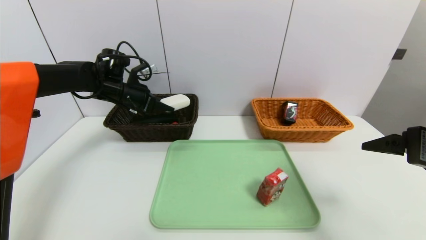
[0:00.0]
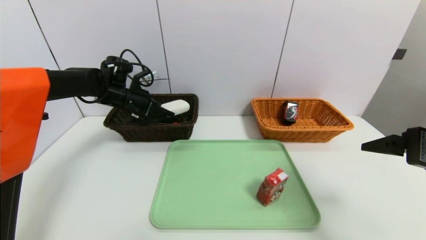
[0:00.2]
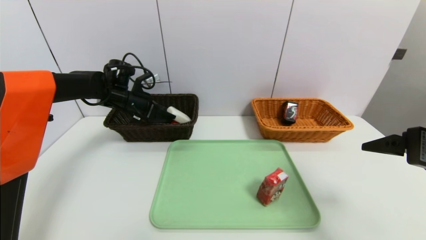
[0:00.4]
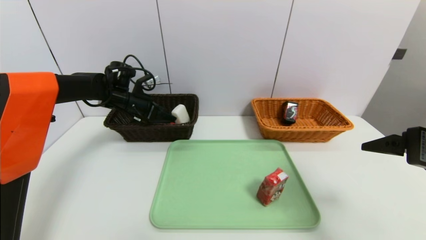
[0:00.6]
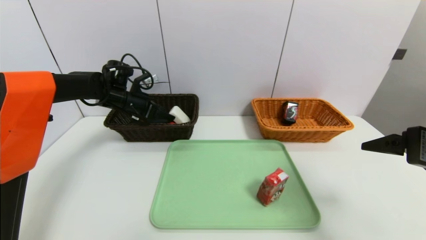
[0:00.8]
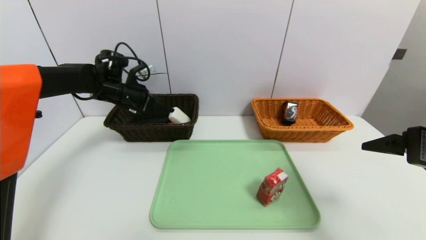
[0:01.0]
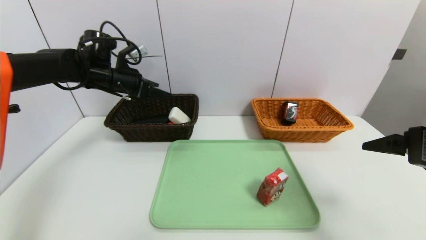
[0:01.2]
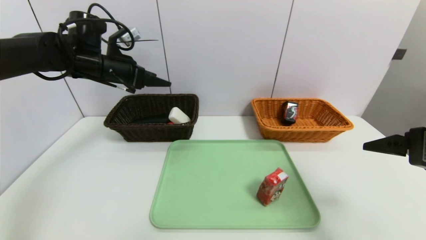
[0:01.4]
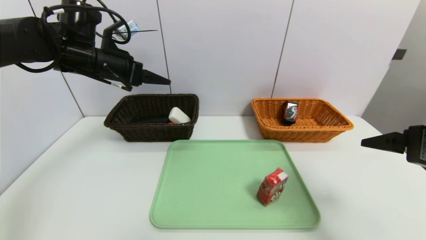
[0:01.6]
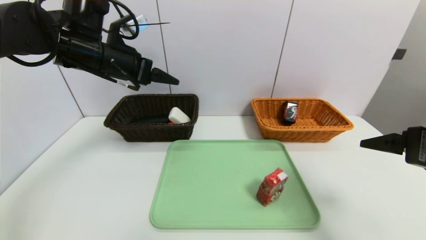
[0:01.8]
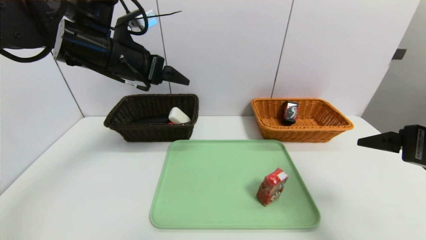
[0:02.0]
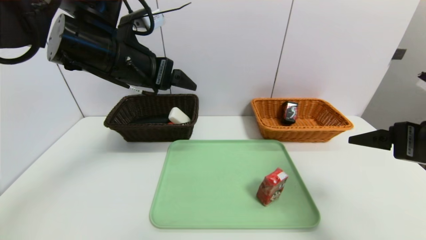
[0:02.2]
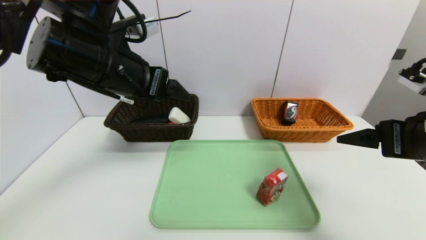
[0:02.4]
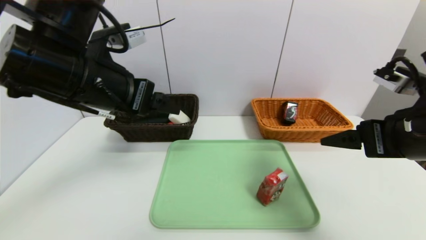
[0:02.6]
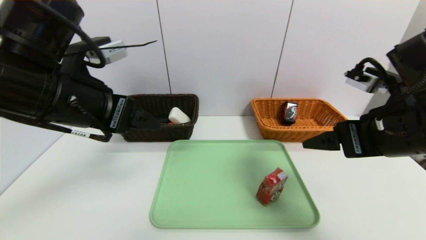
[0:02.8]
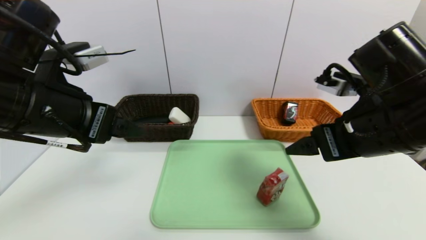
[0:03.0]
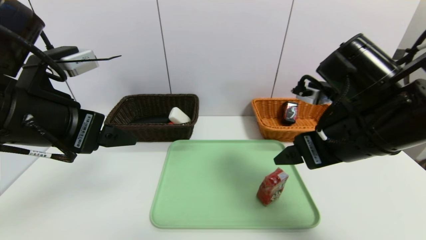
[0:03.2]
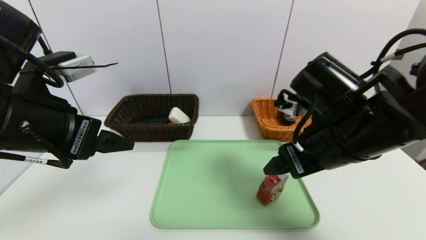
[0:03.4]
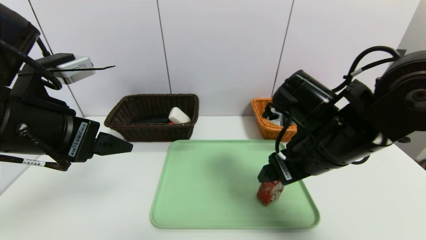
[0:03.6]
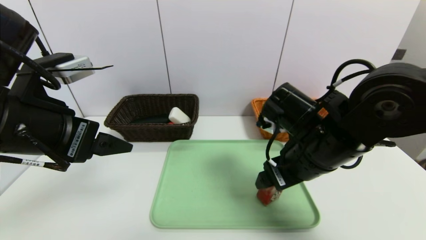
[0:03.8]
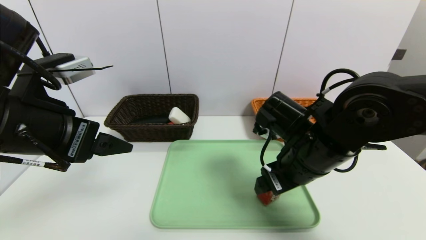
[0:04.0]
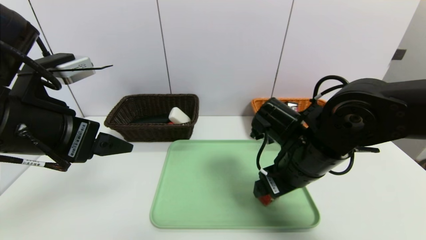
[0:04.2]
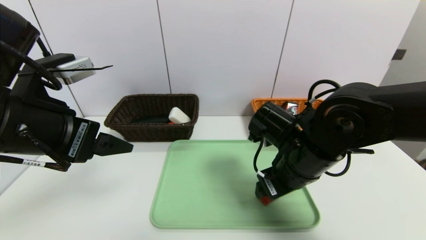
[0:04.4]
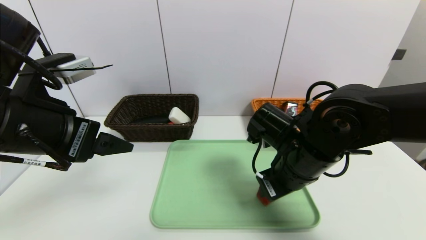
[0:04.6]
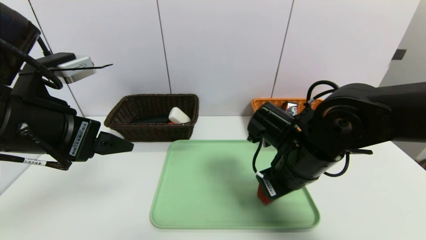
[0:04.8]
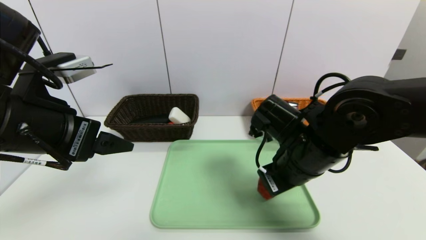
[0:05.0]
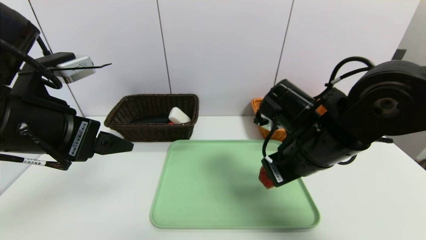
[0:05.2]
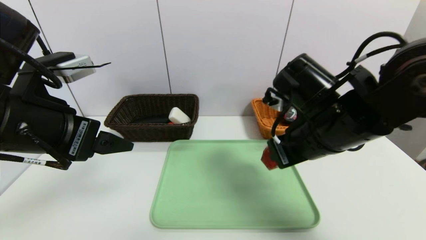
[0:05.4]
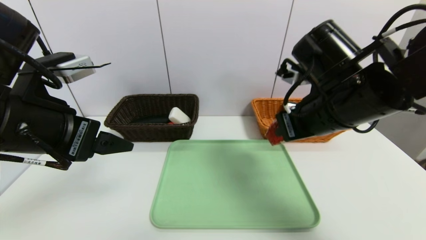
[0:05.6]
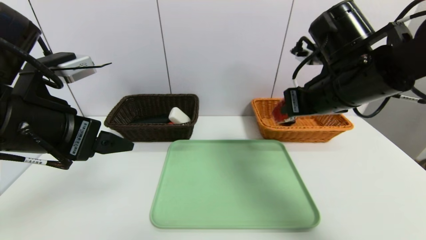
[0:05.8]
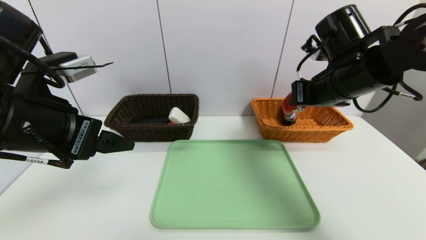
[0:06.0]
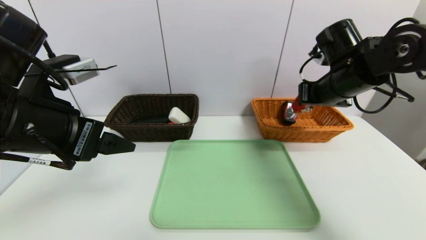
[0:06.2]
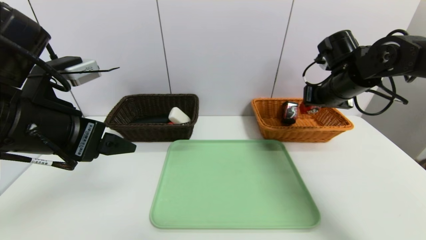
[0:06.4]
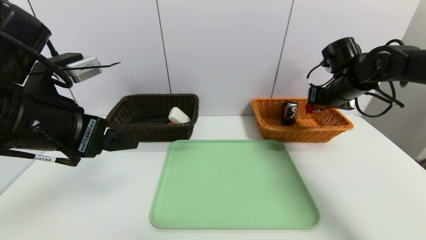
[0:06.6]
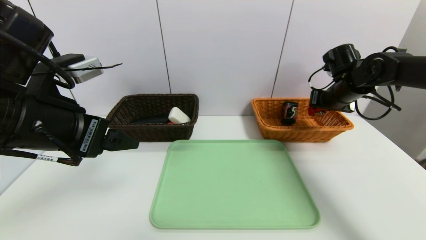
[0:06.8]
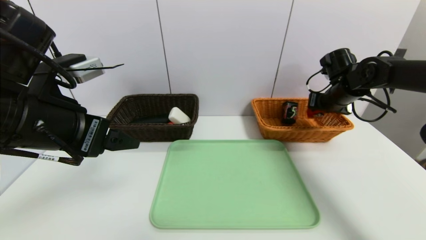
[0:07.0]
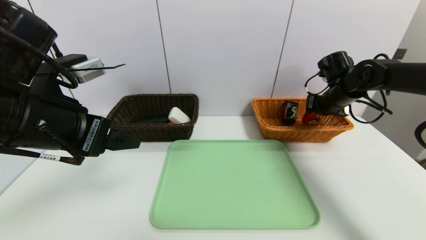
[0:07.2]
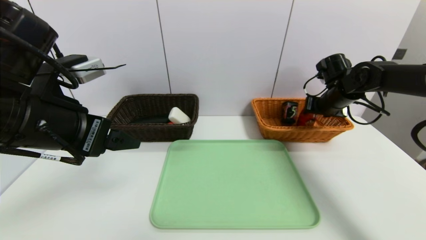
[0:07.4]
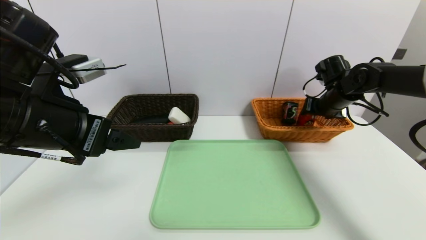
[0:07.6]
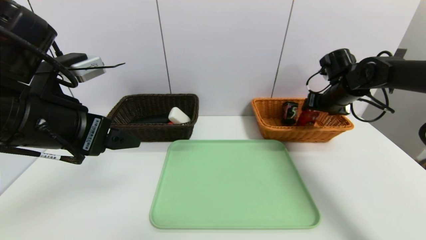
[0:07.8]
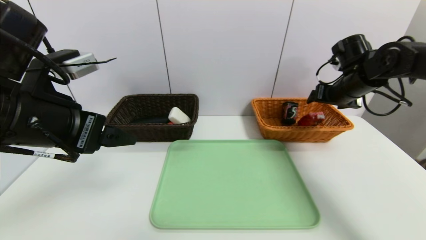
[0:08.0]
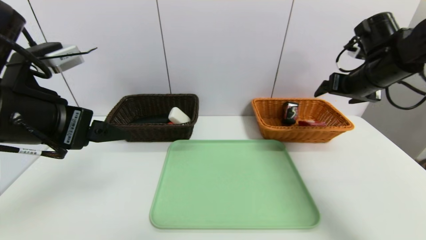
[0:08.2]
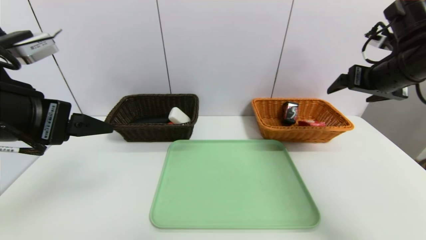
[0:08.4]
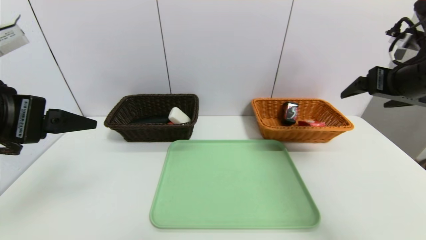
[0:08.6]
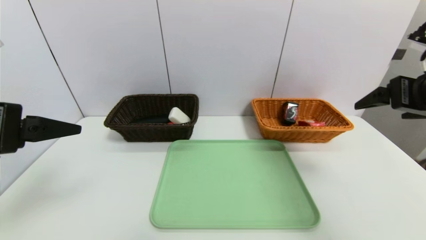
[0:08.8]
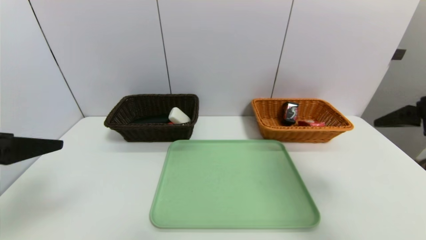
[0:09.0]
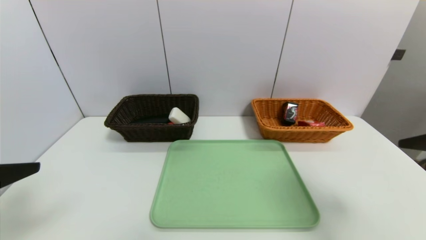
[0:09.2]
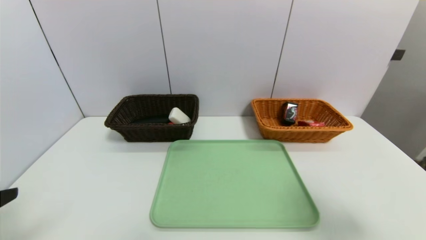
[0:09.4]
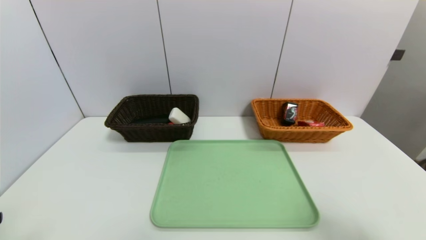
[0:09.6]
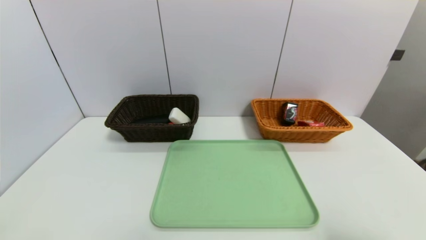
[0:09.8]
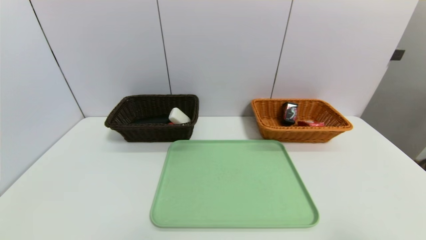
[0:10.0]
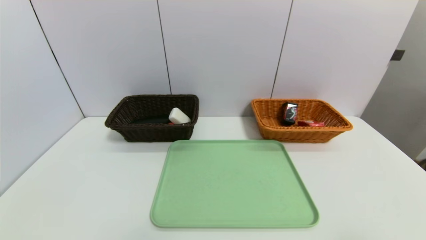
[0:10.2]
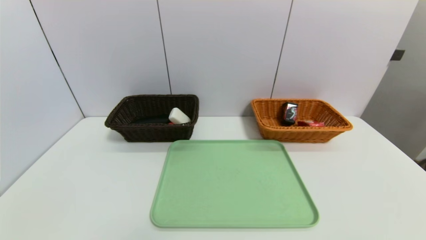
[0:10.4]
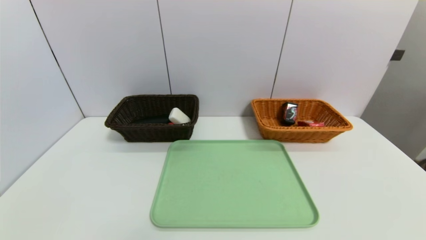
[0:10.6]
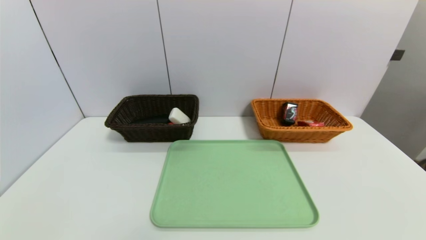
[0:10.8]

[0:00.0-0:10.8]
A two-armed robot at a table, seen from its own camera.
Task of the whole recording: place the food in the right basket with the right gripper, and place the non food items in the left basket with the left gripper.
Step, 1.4 to 7.8 s: Grasp the milk and put it in the right basket.
0.0 to 1.6 s: The left gripper is displaced upward and backward by some 10 cm, and opens its fingers.
1.6 to 3.0 s: The left gripper goes roughly 20 cm backward, while the right gripper moves to the left and forward, roughly 10 cm.
3.0 to 4.6 s: The right gripper travels downward and to the left by about 10 cm, and closes up.
4.6 to 6.2 s: The right gripper shifts approximately 20 cm to the right, forward and upward, and closes up.
6.2 to 7.8 s: The right gripper moves forward, to the right and downward, roughly 10 cm, and opens its fingers.
7.8 to 9.2 s: The right gripper goes roughly 30 cm backward; the left gripper heads backward and to the left, covering approximately 15 cm.
9.2 to 10.8 s: The left gripper shifts some 20 cm downward and backward; the right gripper travels backward and downward by roughly 20 cm.

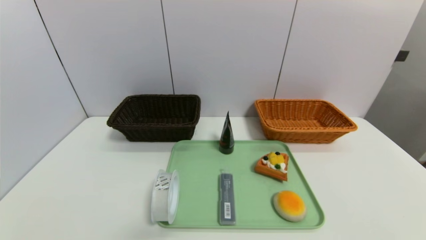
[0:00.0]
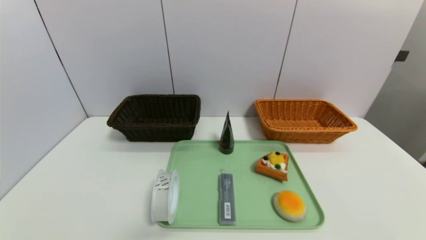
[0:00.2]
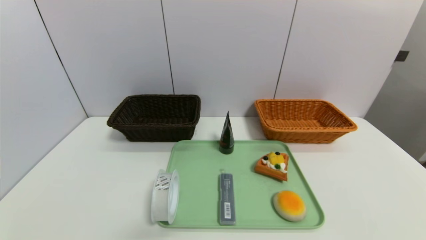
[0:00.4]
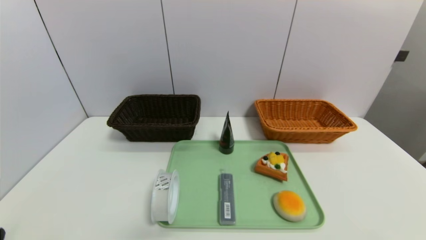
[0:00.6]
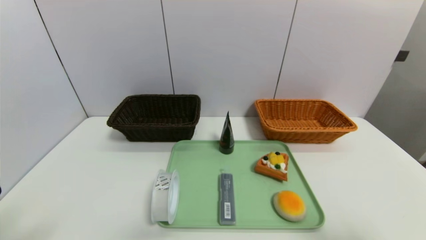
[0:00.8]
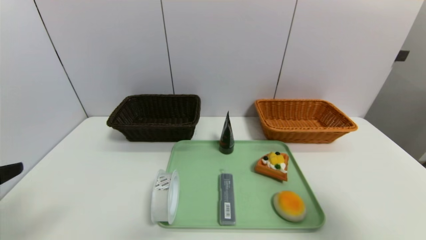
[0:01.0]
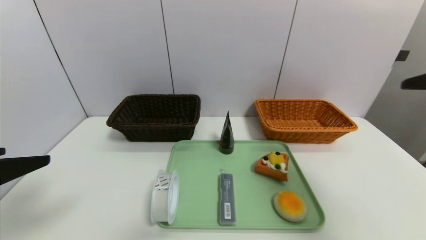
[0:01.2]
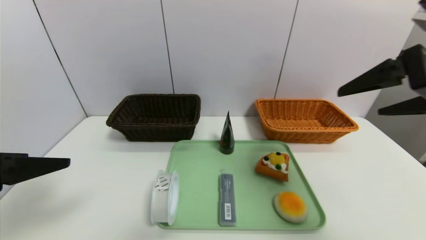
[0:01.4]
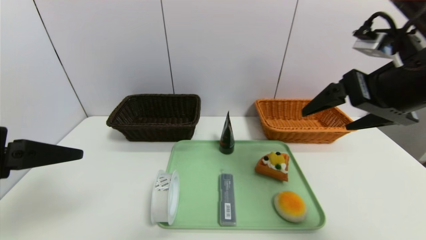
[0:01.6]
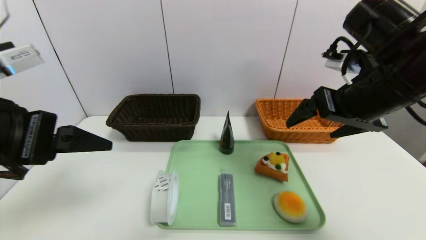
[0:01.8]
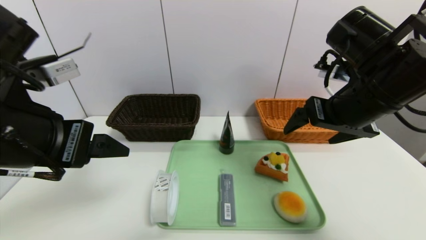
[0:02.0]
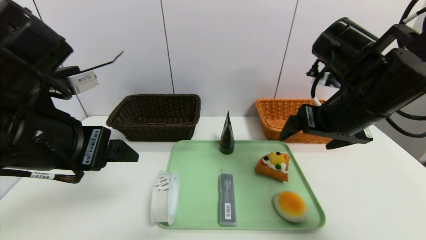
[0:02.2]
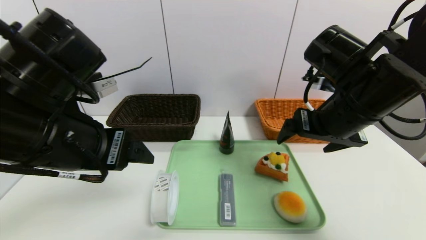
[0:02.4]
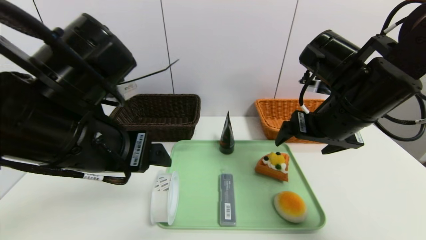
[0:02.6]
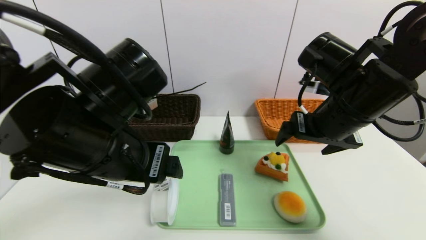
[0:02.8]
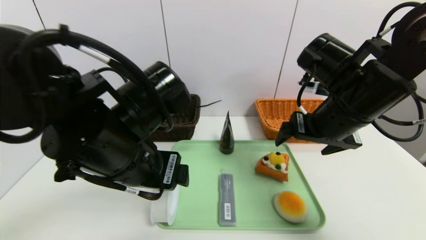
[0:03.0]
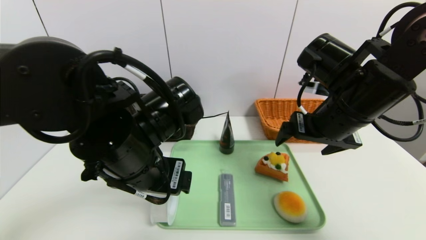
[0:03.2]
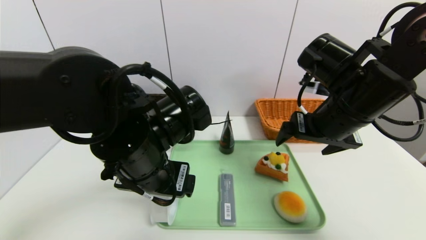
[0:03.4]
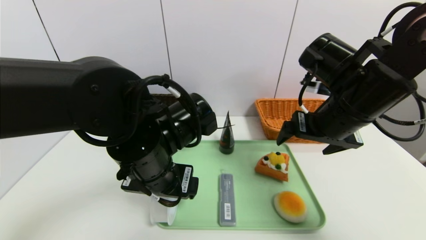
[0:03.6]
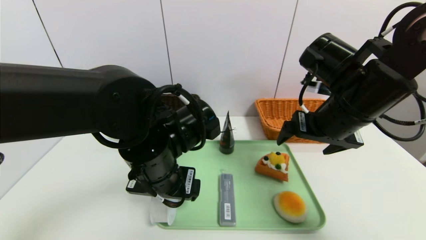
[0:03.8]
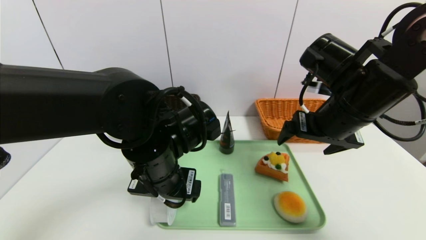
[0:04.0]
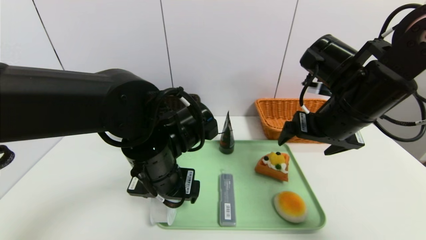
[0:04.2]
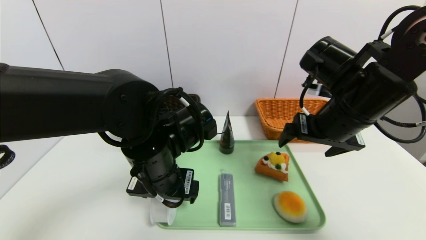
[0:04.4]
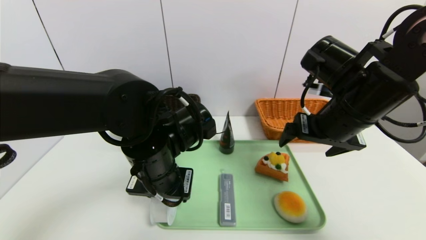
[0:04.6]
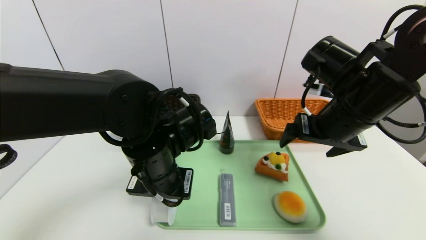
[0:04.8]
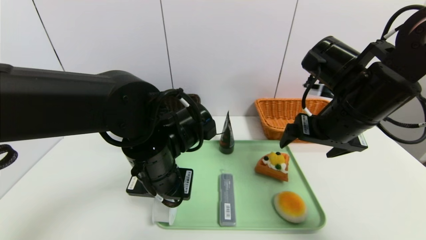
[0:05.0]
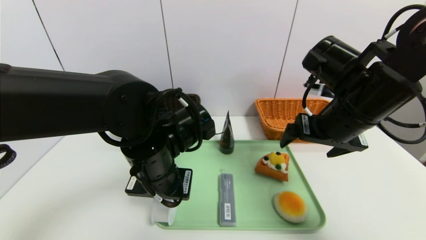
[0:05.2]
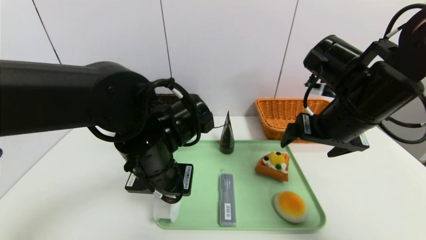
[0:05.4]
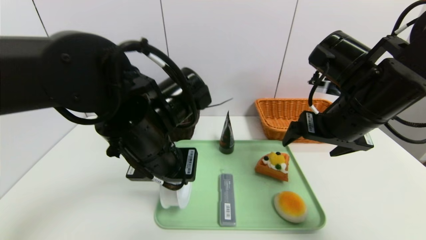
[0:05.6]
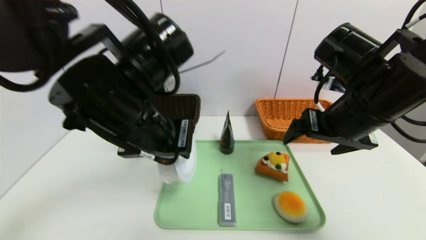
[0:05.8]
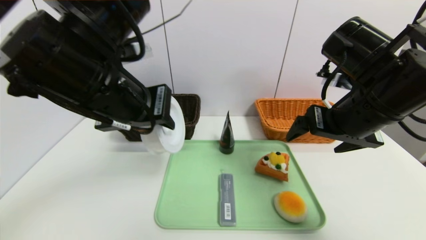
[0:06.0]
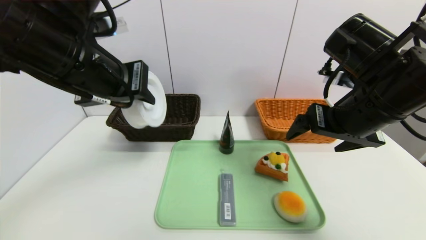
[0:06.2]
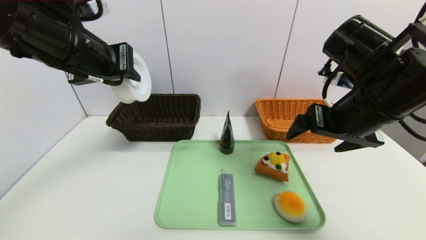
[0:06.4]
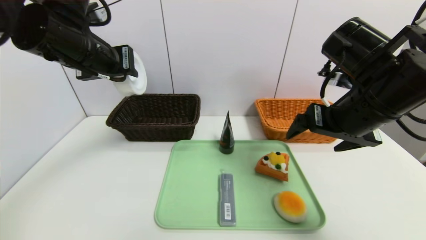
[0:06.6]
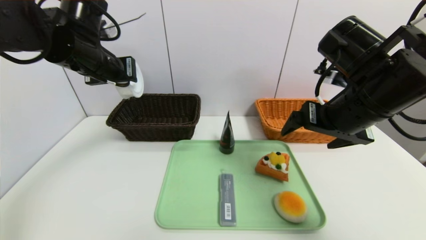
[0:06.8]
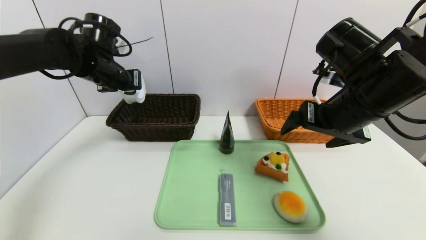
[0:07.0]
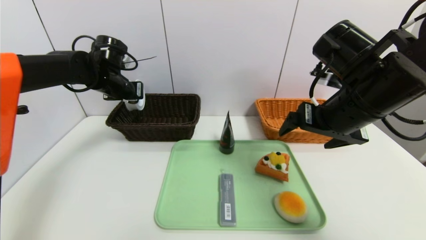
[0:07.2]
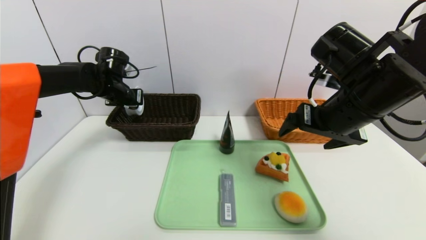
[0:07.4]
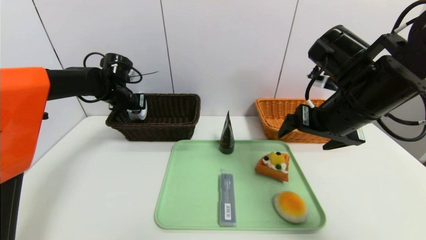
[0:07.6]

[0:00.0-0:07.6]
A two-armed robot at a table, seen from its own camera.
Task of the whole recording: place the food in the right basket with the right gripper, and place the non food items in the left basket with the left gripper.
0.0 to 1.6 s: The left gripper moves upward and forward, approximately 30 cm. Meanwhile the right gripper heads upward, forward and to the left, covering some 35 cm.
1.6 to 3.0 s: The left gripper is displaced to the right, forward and downward by roughly 20 cm, while the right gripper shifts roughly 5 cm downward.
3.0 to 4.6 s: The left gripper heads downward, covering about 5 cm, and closes its fingers.
4.6 to 6.0 s: The left gripper goes roughly 15 cm upward, and closes up.
6.0 to 7.6 s: The left gripper goes approximately 30 cm forward, downward and to the left.
